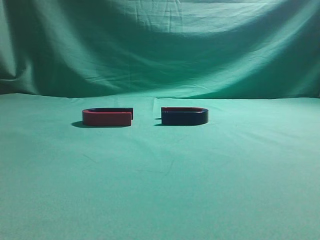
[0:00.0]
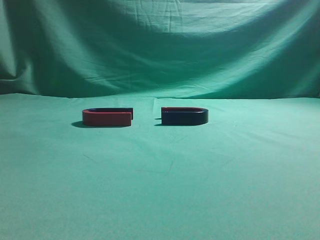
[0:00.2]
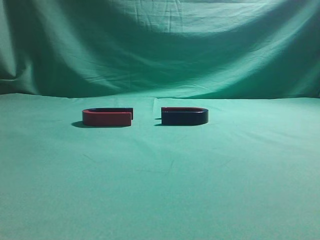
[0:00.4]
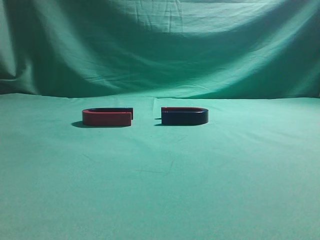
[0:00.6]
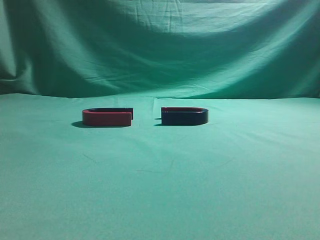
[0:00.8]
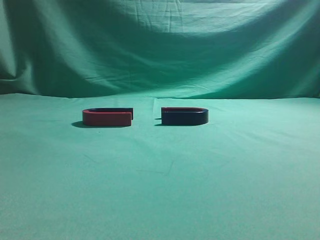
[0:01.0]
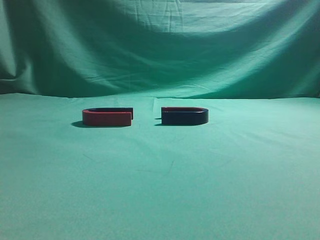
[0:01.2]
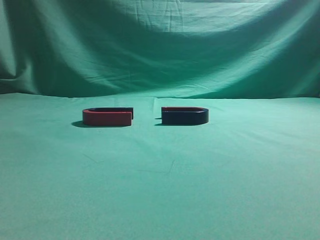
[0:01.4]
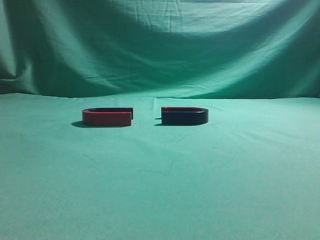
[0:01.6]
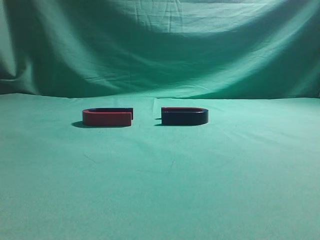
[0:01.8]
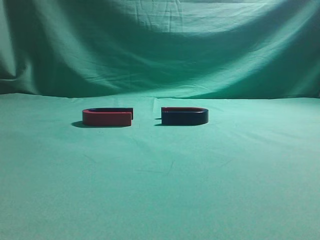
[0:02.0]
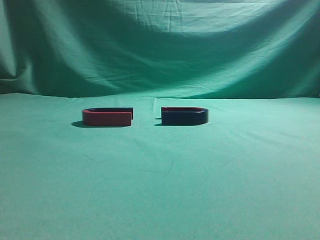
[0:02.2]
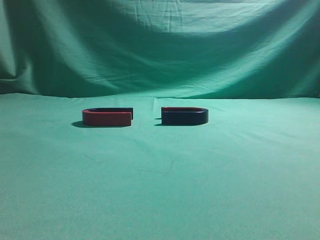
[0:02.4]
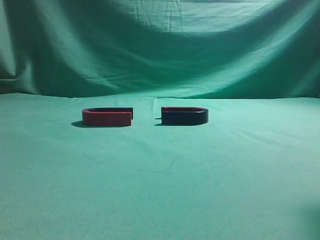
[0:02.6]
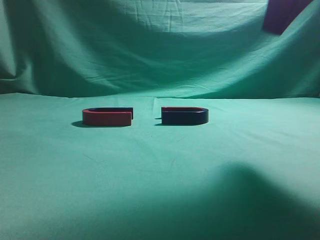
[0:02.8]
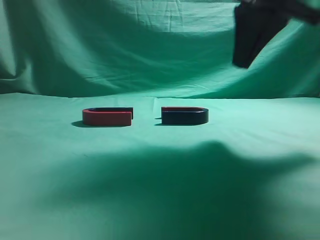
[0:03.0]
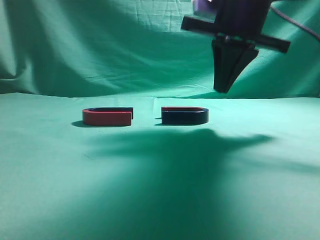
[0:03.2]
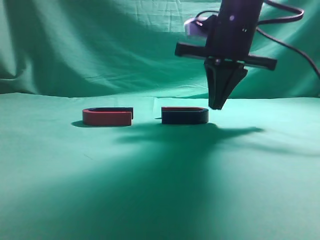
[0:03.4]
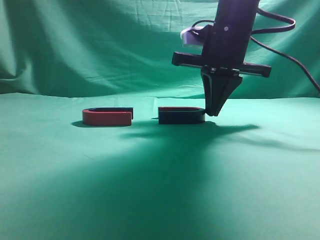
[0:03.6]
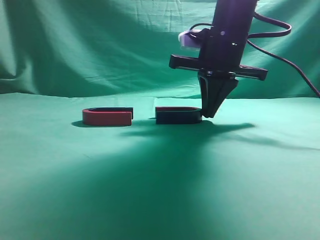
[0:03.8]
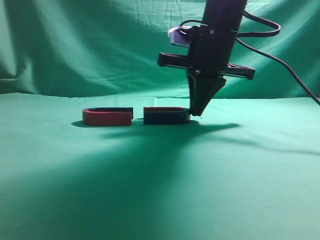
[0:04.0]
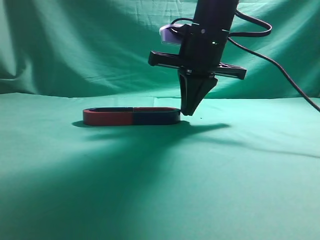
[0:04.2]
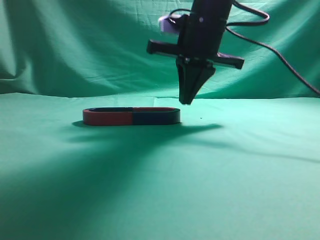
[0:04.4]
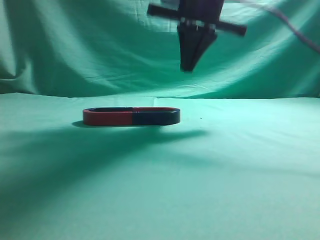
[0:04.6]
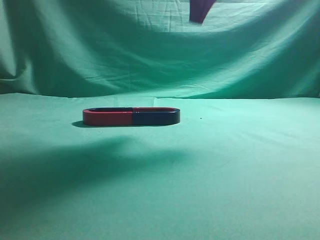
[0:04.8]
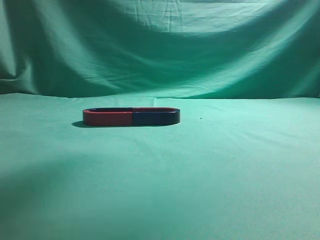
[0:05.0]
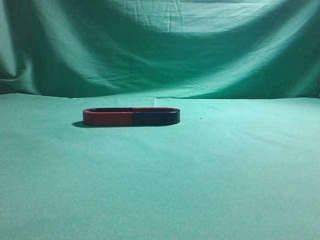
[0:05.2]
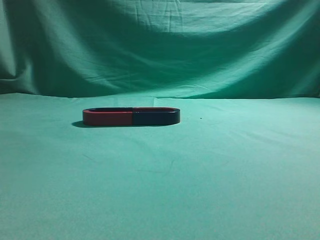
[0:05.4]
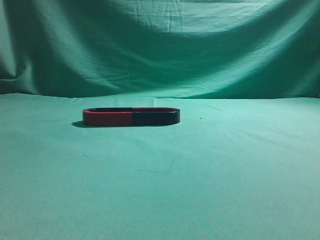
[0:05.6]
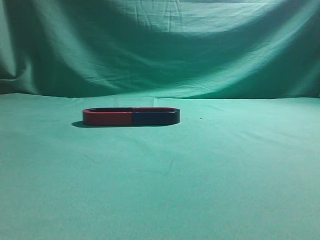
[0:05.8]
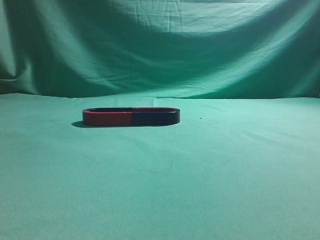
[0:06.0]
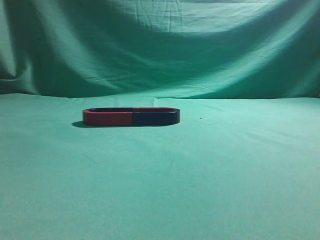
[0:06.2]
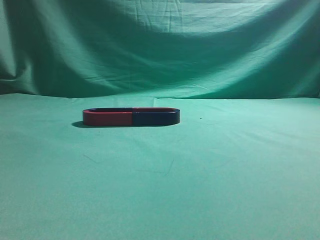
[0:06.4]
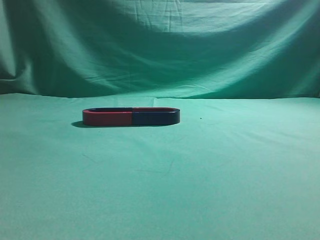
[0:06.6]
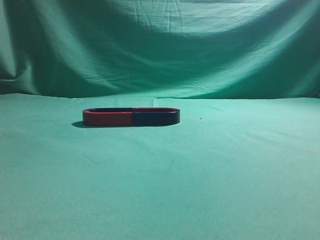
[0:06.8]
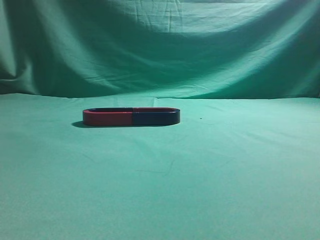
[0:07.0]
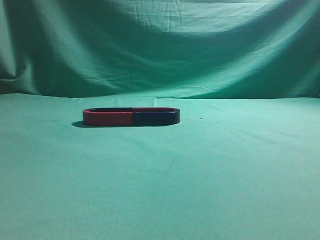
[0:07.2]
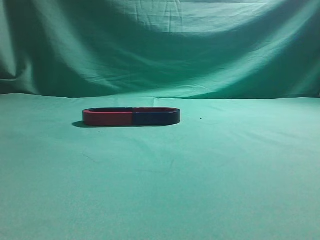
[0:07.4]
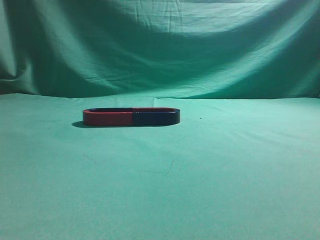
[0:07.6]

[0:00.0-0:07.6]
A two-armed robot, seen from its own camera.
Task of the whole recording: push the magnet on the table from its original position to another position.
Step, 0:00.0 to 0:04.2: Push the magnet on the right to connect the magnet on the left.
0:01.6 to 0:03.0: The right gripper goes some 30 cm forward and to the left.
0:03.0 to 0:04.6: The right gripper shifts approximately 10 cm forward and to the left.
0:04.6 to 0:06.0: The right gripper travels backward, to the right and upward by some 35 cm.
